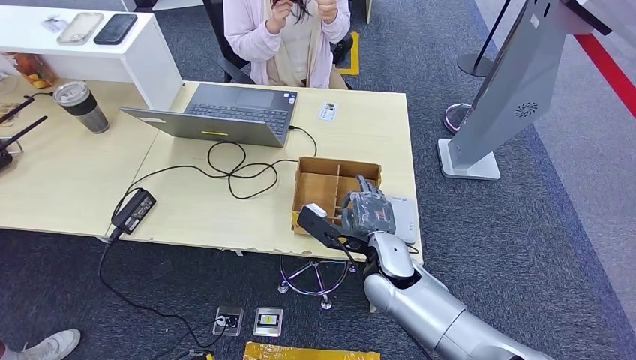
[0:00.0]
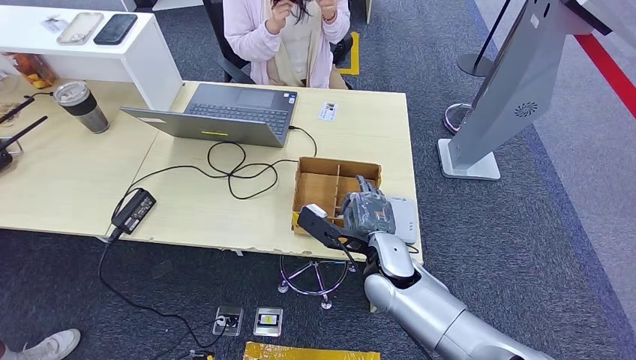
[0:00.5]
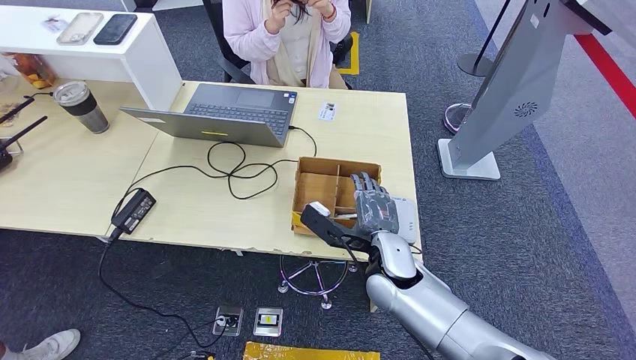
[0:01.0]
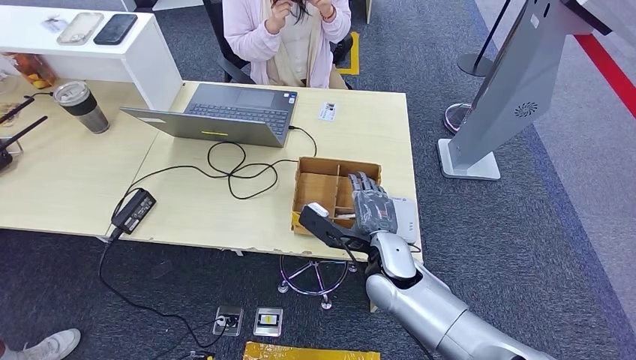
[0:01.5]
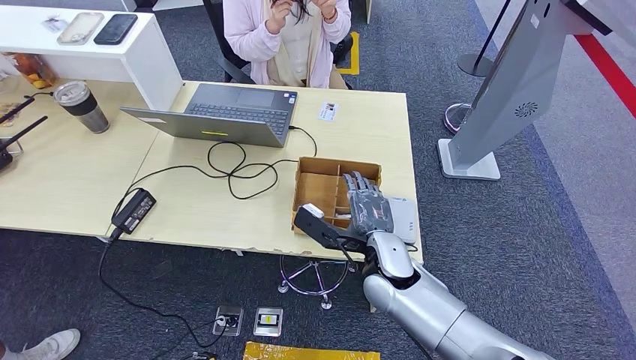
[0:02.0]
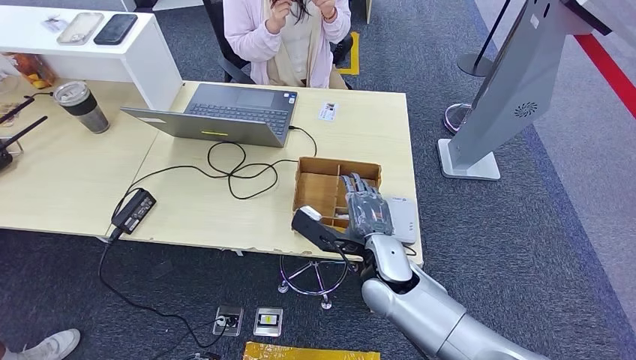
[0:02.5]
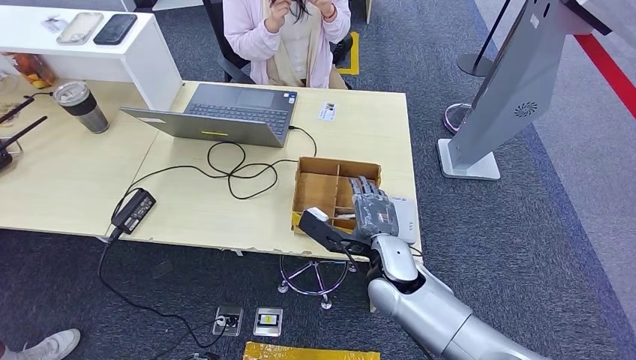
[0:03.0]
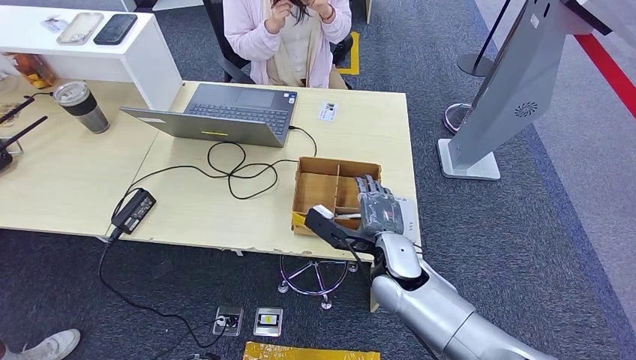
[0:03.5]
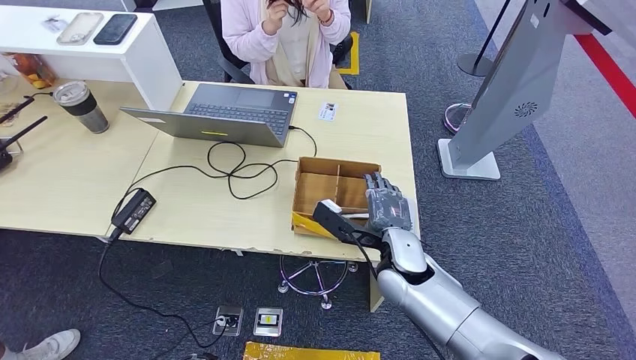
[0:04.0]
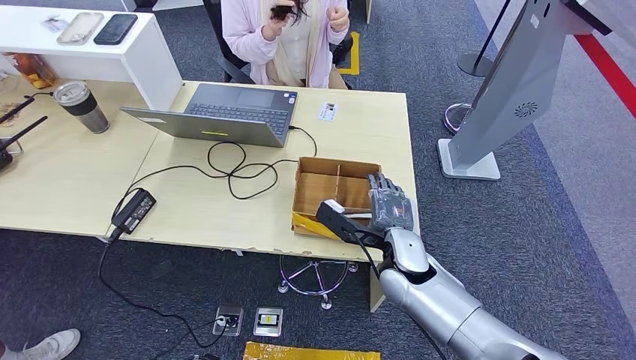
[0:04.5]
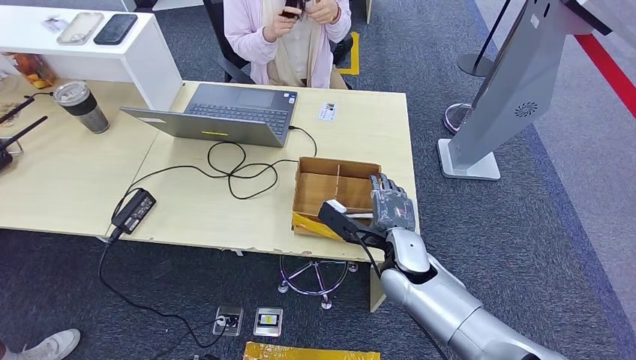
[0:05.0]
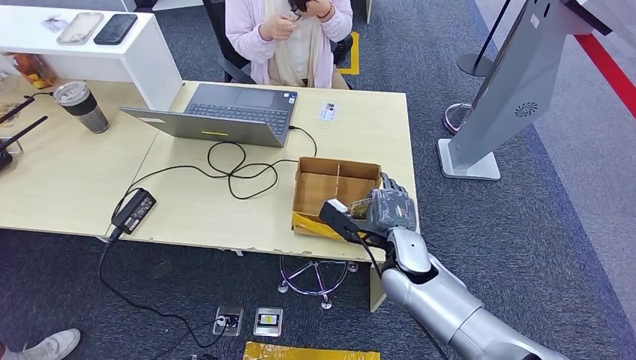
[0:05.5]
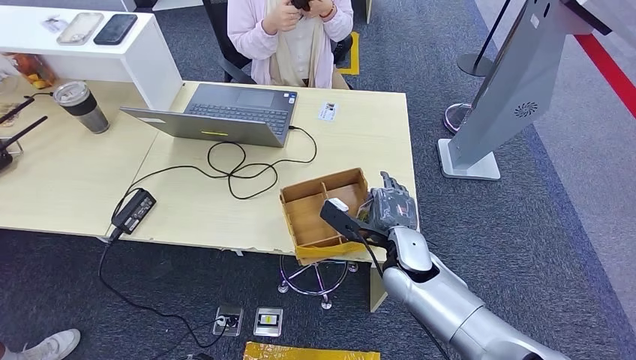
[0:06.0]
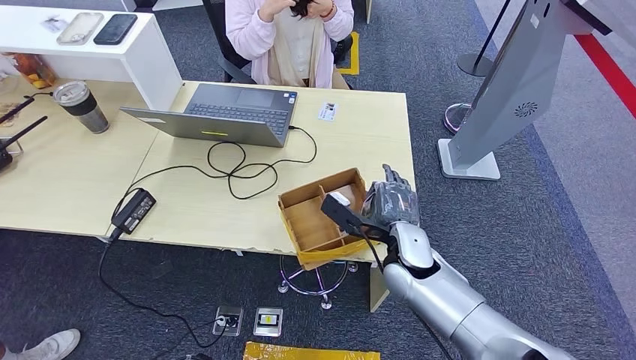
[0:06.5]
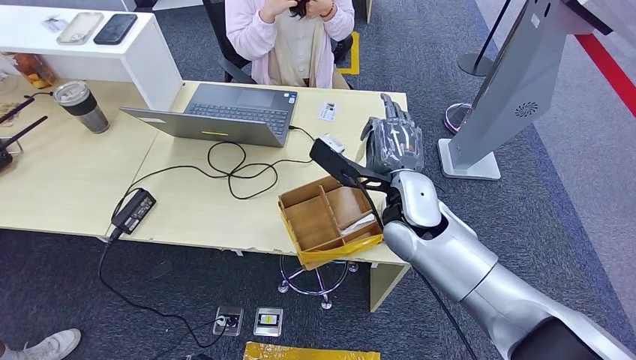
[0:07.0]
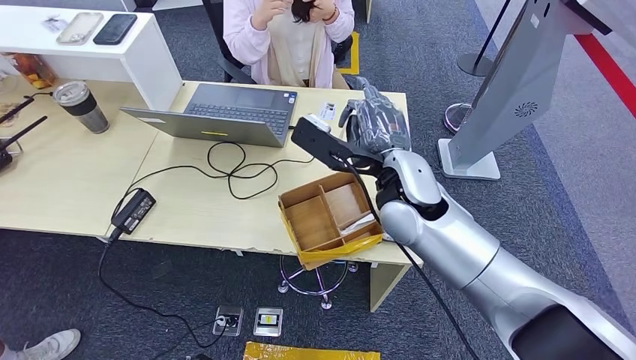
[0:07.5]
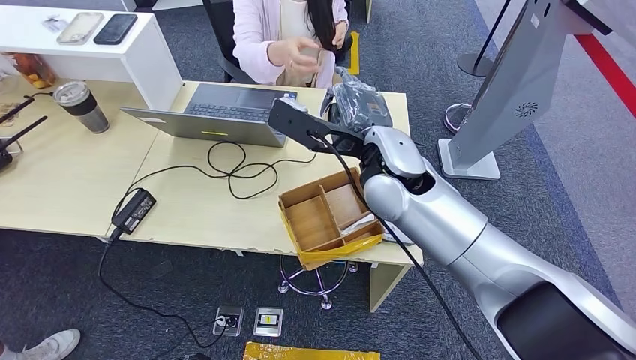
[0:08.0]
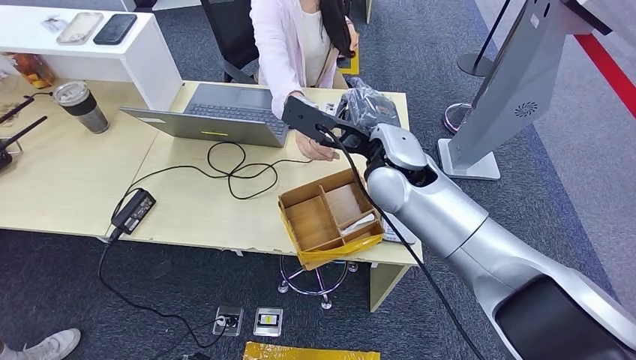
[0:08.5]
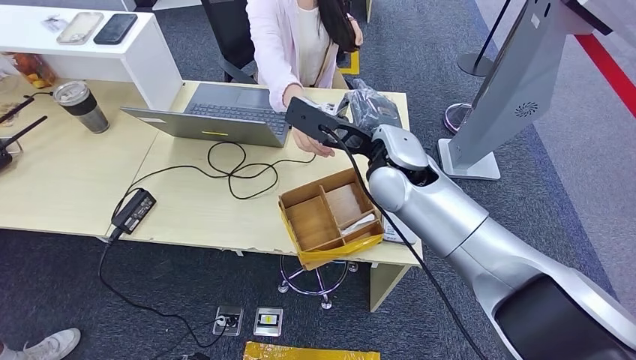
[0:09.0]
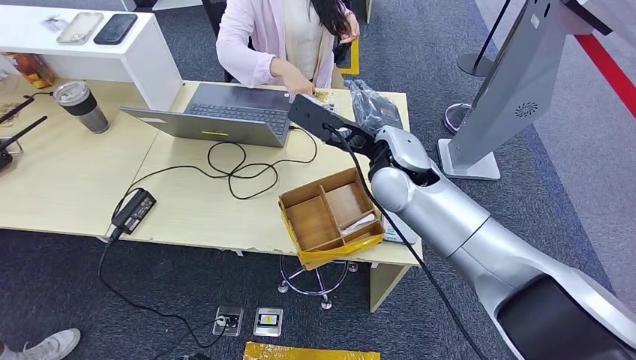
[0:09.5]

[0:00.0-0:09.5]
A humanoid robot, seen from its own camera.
Step, 0:03.5 to 0:07.0: Pick up the room key from the key card box.
Step, 0:08.0 to 0:09.5: Hand the room key to the person.
0:00.0 to 0:02.0: The two hands keep their place.
0:02.0 to 0:04.0: The hands stay close to where they were, moving slightly.
0:04.0 to 0:05.5: Neither hand changes place.
0:05.5 to 0:07.5: The right hand moves upward and forward, roughly 20 cm.
0:07.5 to 0:09.5: There are only small adjustments of the hands.
